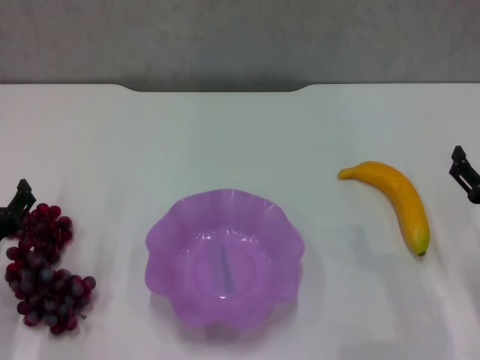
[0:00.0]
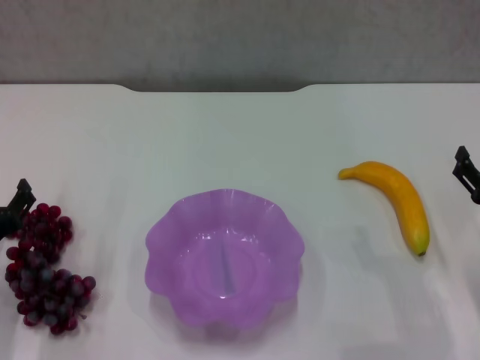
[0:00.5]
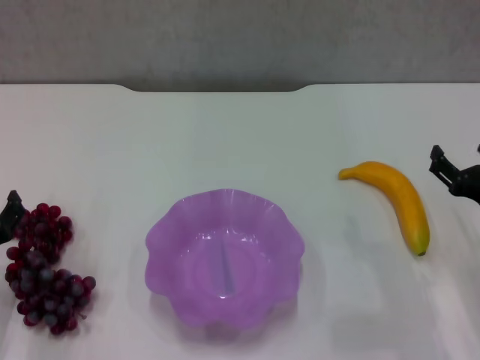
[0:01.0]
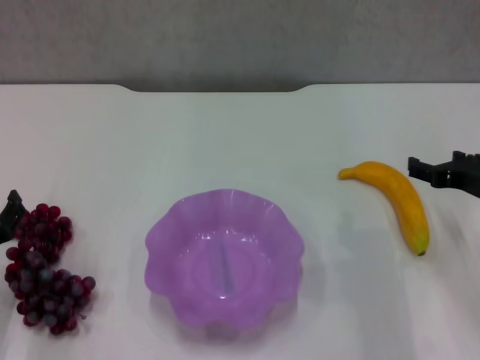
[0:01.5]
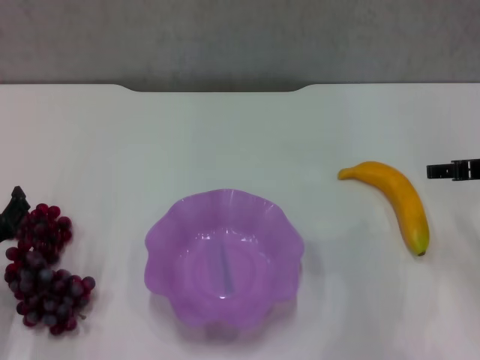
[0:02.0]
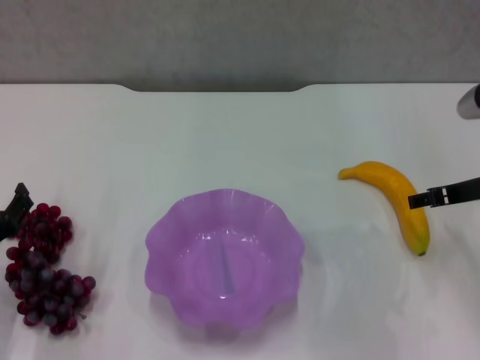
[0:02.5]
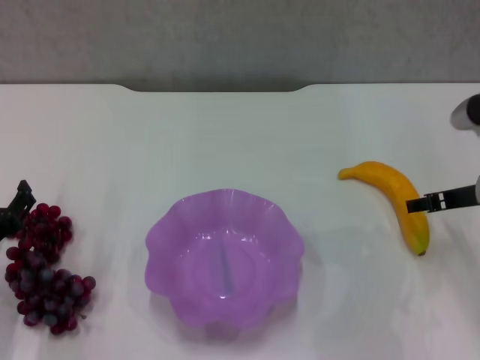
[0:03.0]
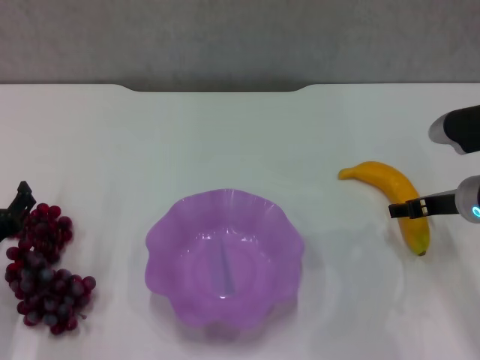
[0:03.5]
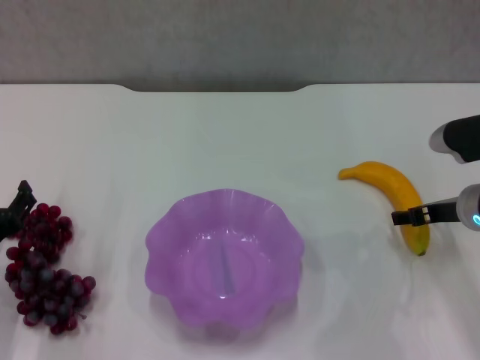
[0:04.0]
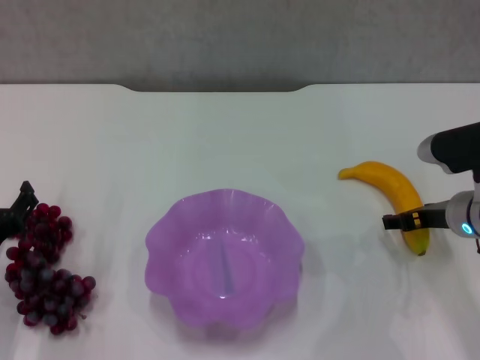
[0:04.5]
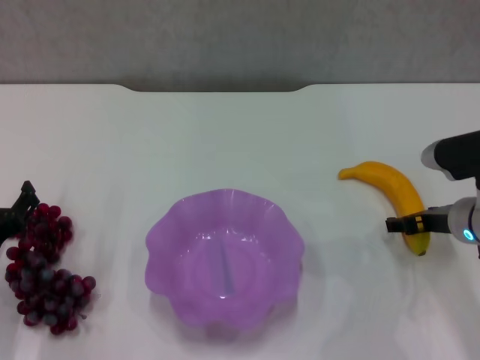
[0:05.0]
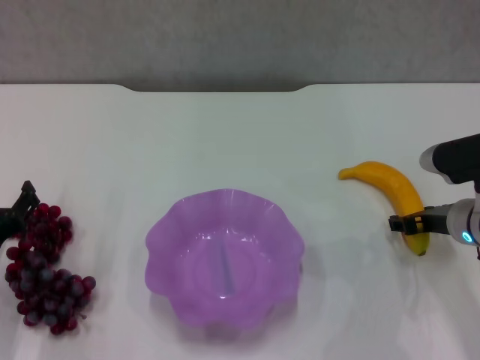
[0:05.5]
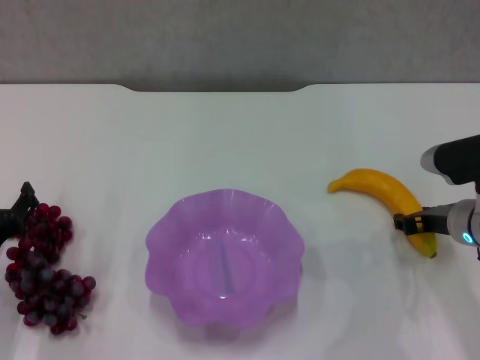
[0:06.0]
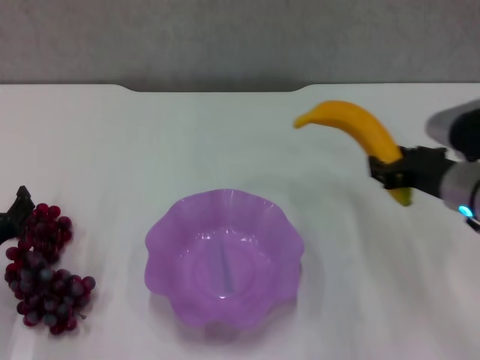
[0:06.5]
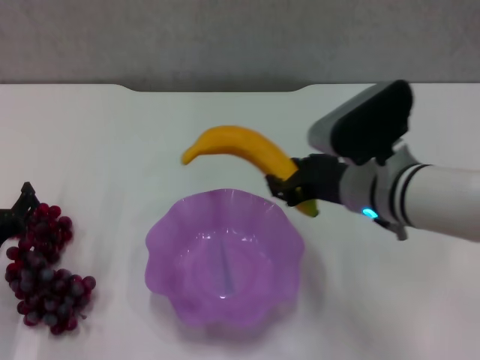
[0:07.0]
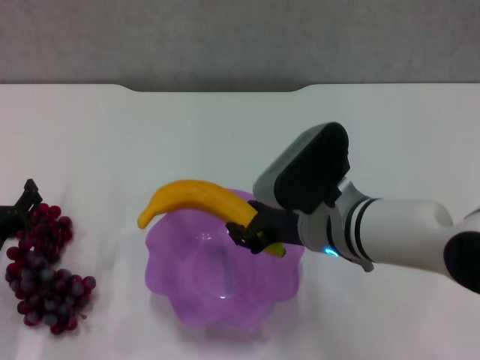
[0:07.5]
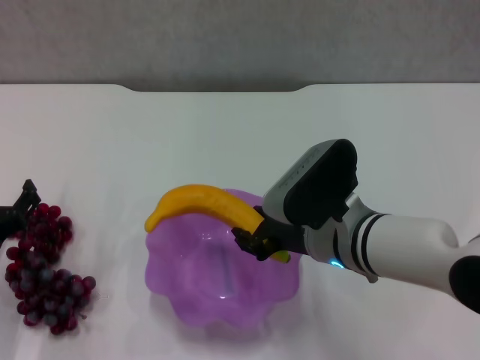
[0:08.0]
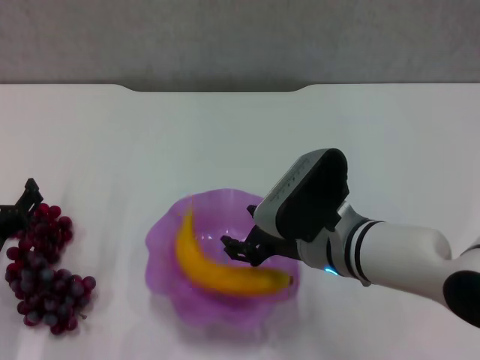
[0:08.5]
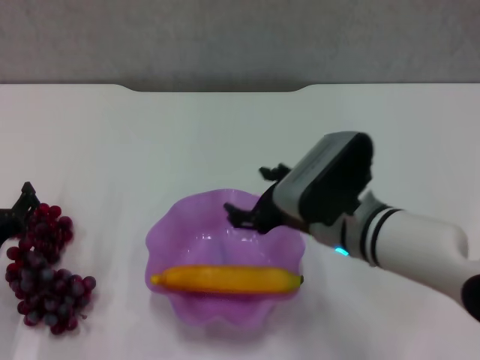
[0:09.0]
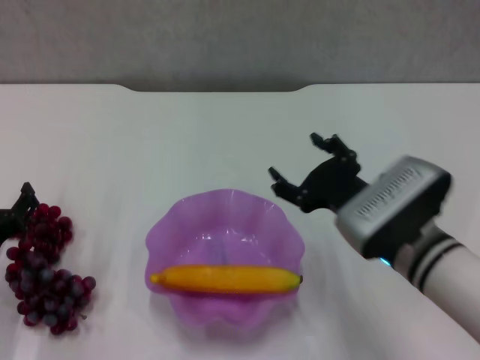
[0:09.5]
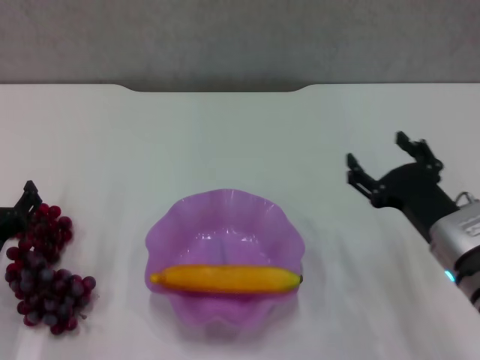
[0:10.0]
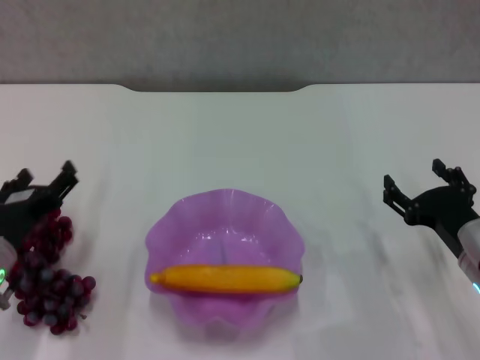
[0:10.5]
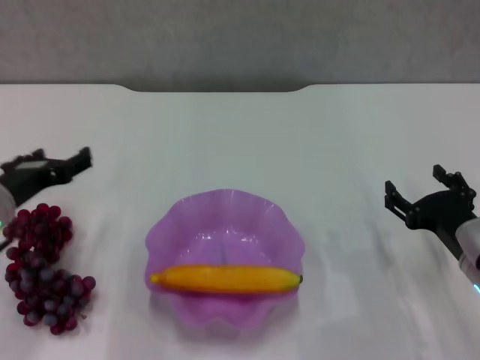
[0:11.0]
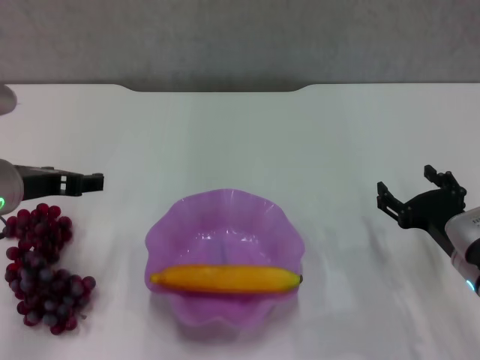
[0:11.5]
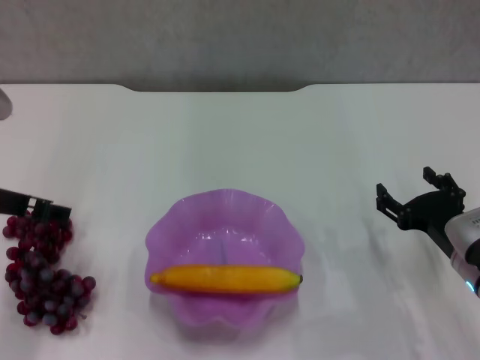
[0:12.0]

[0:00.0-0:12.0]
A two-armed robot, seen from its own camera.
Step, 0.0 to 6.0 s: Grasp the banana with right gripper.
Step, 6.5 to 8.5 s: Place the banana in the purple plate with right gripper.
0.0 to 2.0 s: The right gripper is displaced upward and forward by roughly 15 cm.
2.0 to 4.0 s: The right gripper shifts some 10 cm downward.
4.0 to 6.0 s: The right gripper closes up.
6.0 to 8.0 s: The right gripper shifts approximately 15 cm to the left.
8.0 to 10.0 s: The right gripper moves to the right, some 10 cm, and opens up.
10.0 to 12.0 s: The left gripper heads upward, covering about 15 cm.

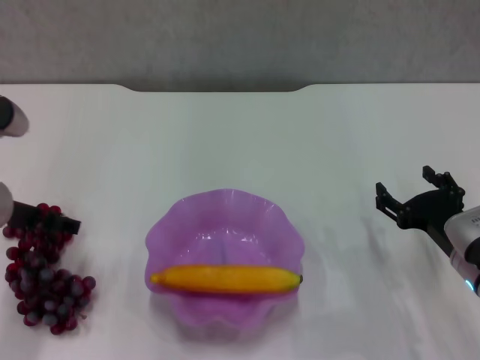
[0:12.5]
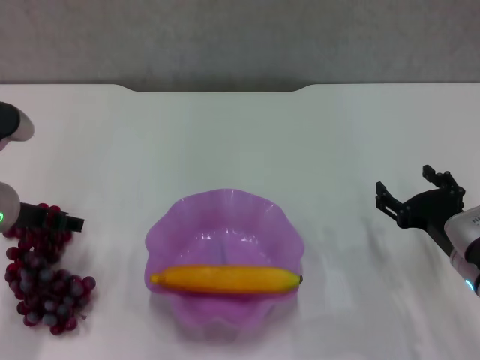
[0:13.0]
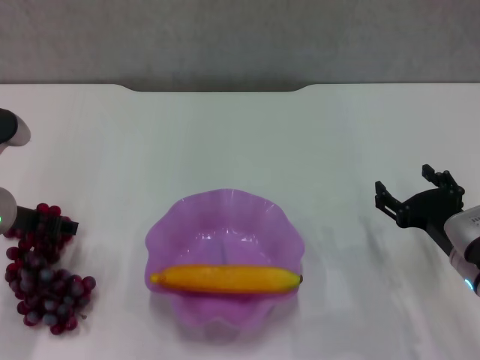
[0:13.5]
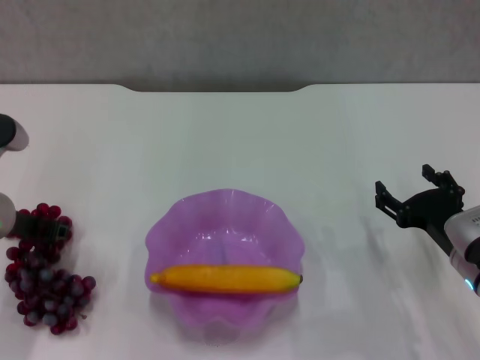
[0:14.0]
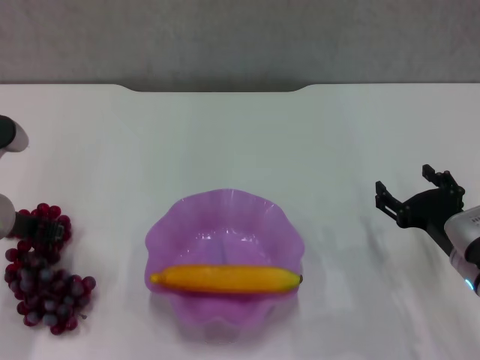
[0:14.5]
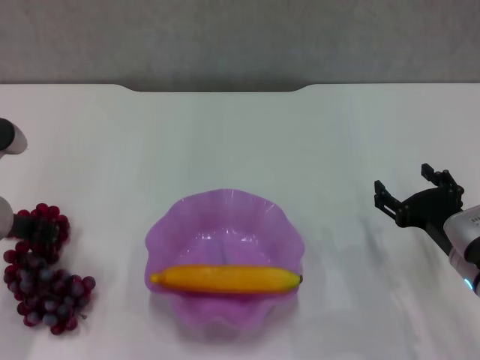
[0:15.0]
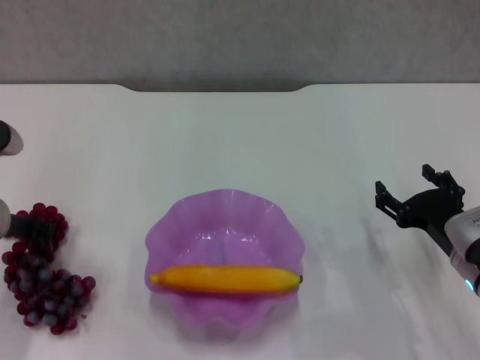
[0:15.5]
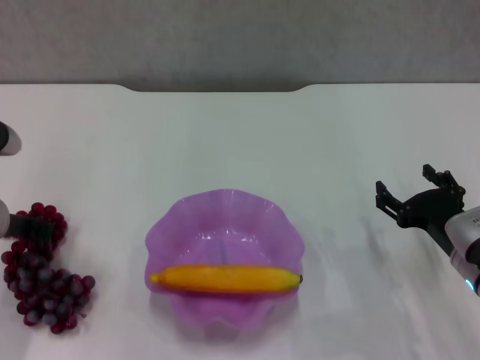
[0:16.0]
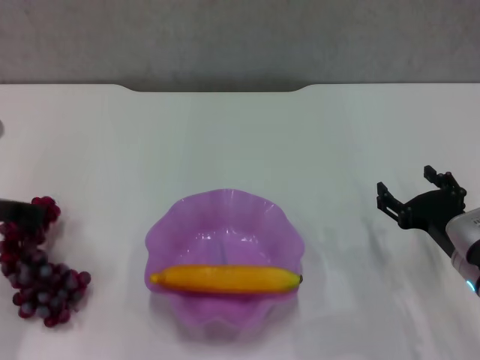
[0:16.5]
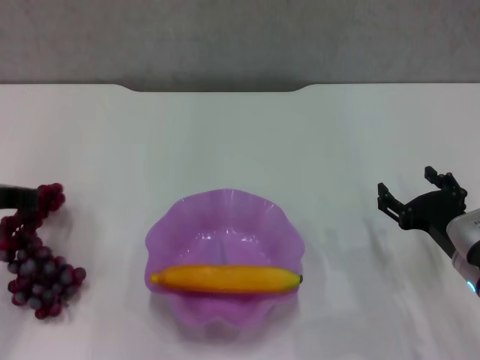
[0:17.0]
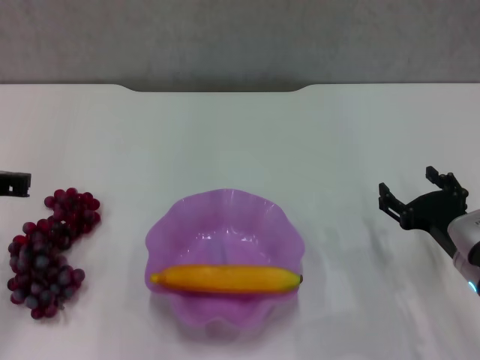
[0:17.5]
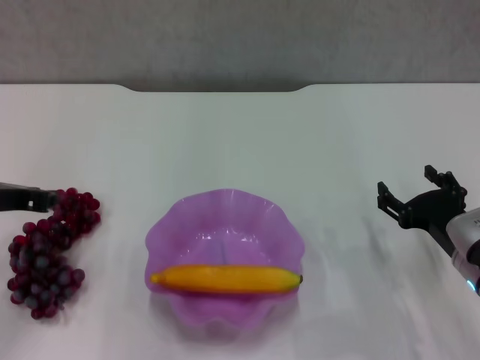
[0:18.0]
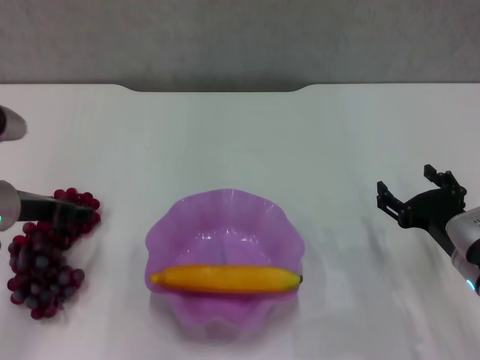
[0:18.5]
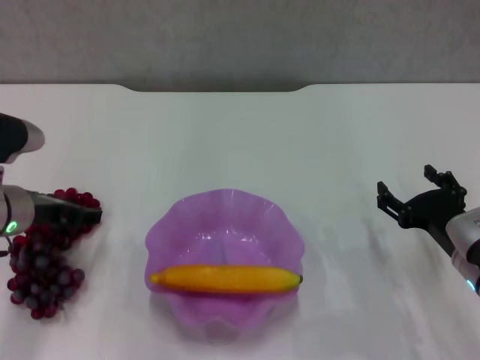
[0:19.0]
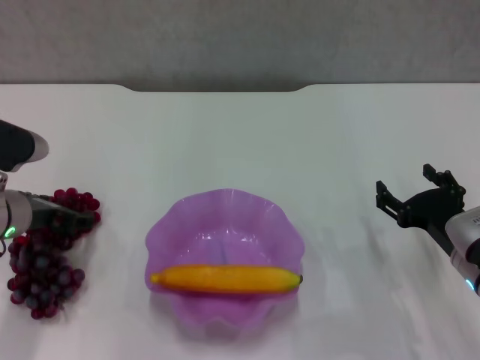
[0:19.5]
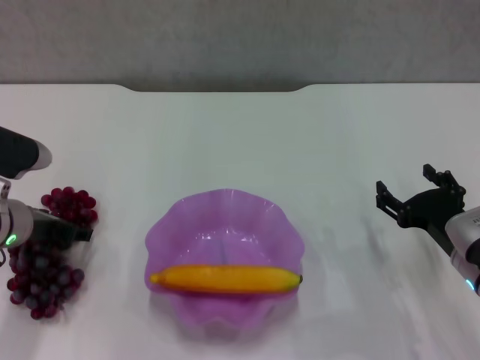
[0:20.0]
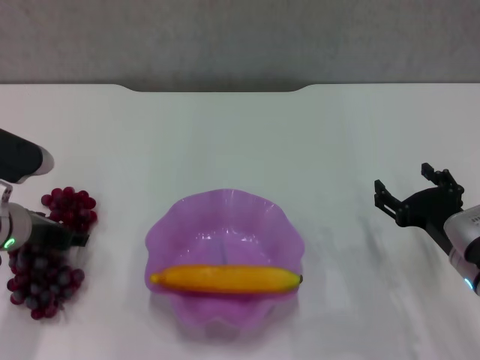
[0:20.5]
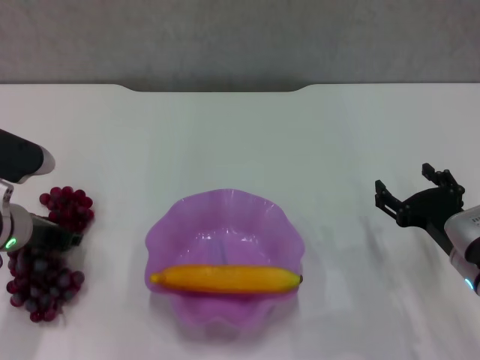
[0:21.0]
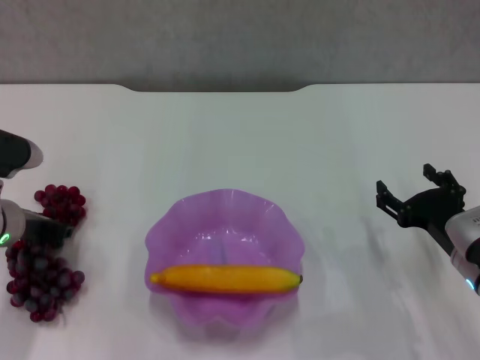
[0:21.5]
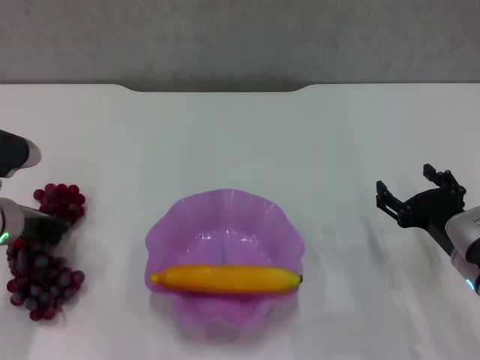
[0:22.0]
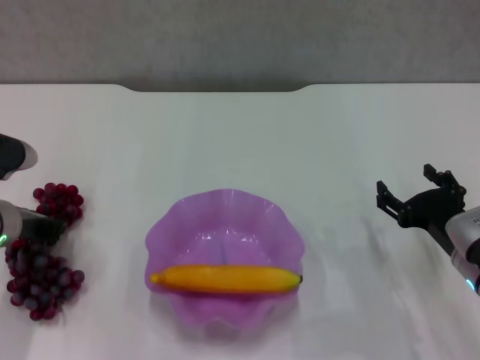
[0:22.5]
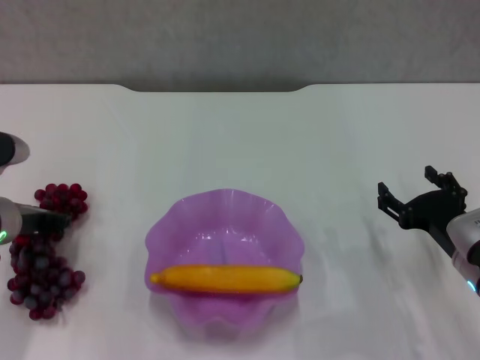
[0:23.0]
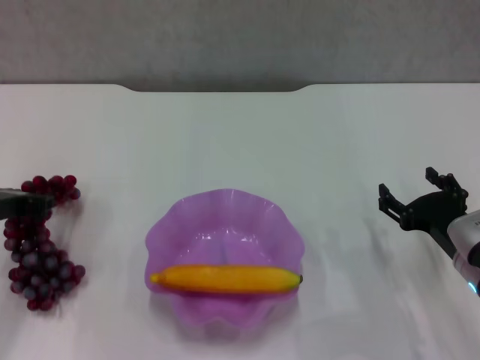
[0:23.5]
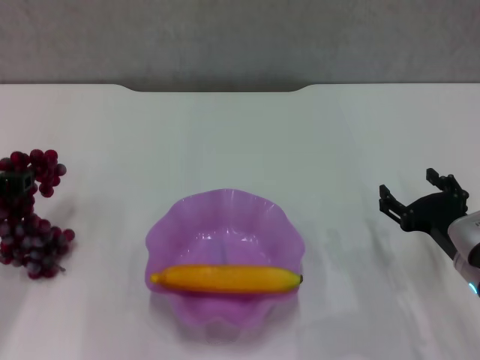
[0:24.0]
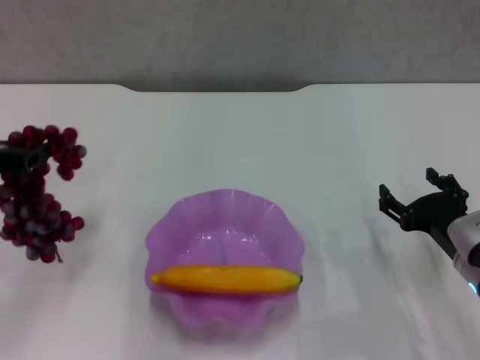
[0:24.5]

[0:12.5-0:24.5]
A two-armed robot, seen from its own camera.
Step, 12.5 to 22.5 s: Grasp the grape with left gripper.
12.5 to 14.5 s: The left gripper closes its fingers.
14.5 to 16.5 s: The left gripper closes its fingers.
16.5 to 18.5 s: The left gripper opens up.
18.5 to 20.5 s: The grippers make only small movements.
20.5 to 22.5 s: The left gripper closes up.
22.5 to 24.5 s: The left gripper goes about 15 cm upward and backward.

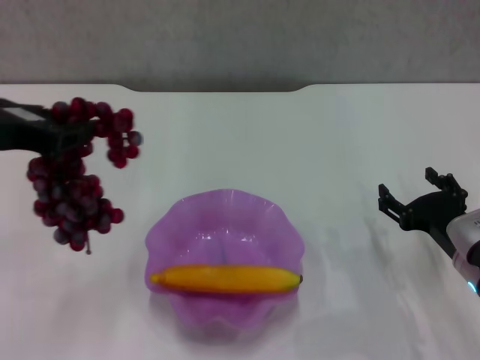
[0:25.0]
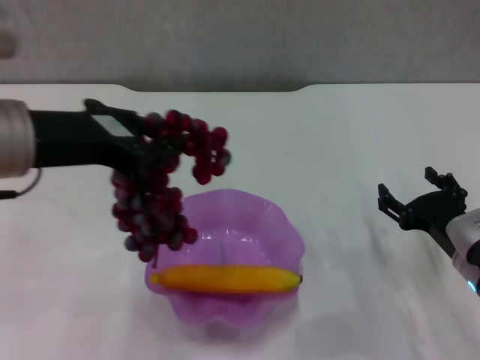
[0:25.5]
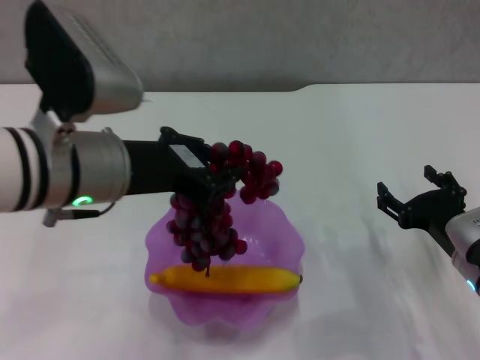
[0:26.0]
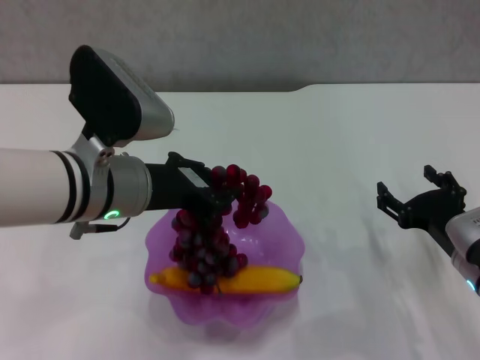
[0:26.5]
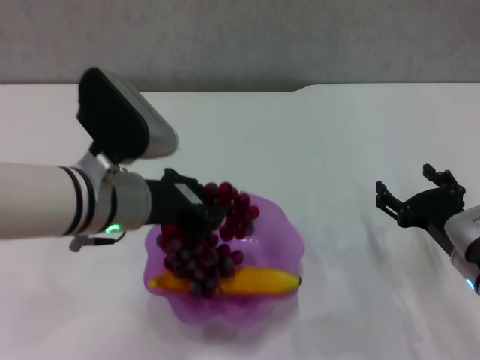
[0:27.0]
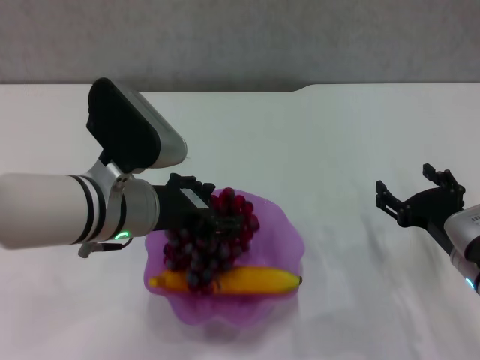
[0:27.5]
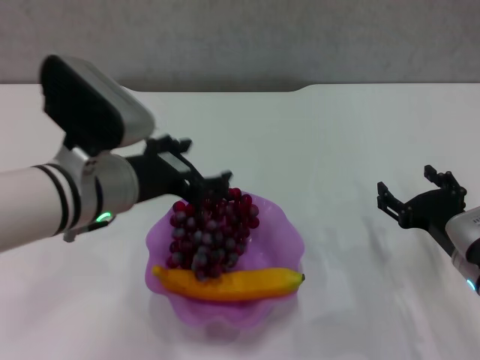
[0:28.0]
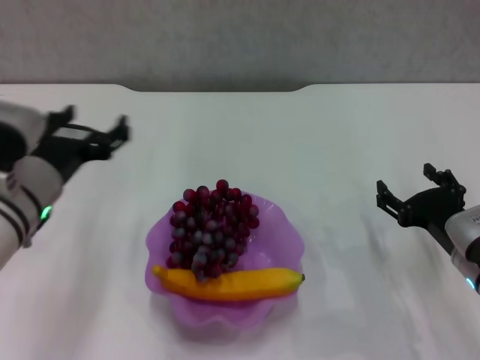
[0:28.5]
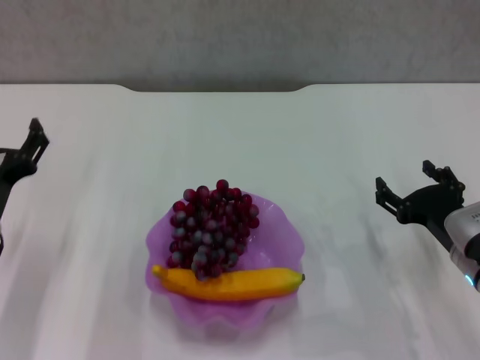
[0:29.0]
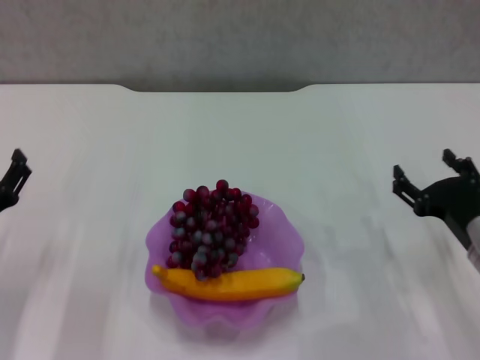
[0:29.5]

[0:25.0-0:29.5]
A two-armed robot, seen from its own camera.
Step, 25.0 to 28.0 s: Place the grape in the purple plate with left gripper.
25.0 to 27.0 s: The left gripper goes approximately 15 cm to the right and downward.
27.0 to 29.5 s: The left gripper goes approximately 20 cm to the left and downward, and opens.
